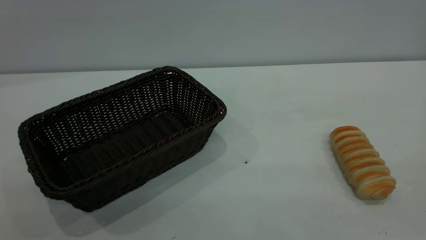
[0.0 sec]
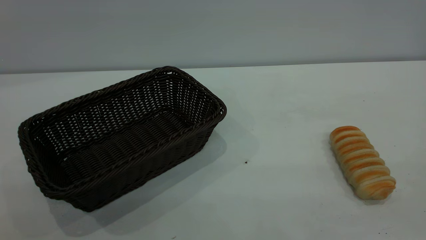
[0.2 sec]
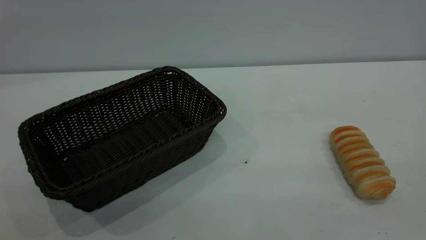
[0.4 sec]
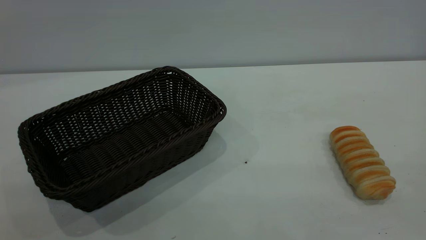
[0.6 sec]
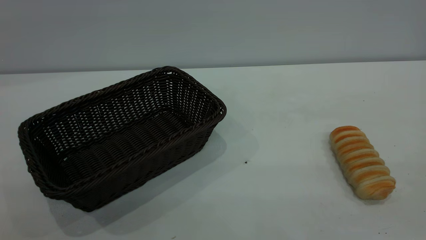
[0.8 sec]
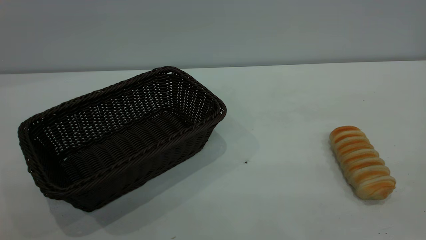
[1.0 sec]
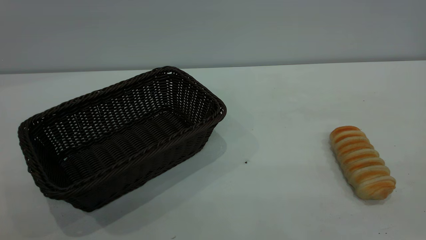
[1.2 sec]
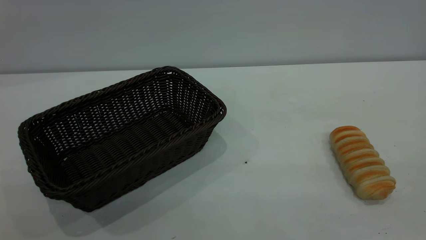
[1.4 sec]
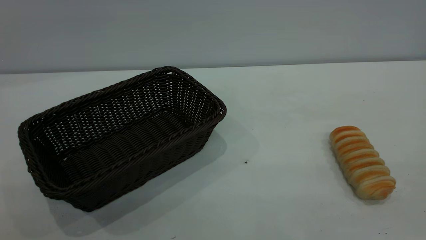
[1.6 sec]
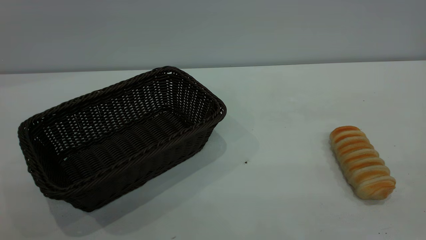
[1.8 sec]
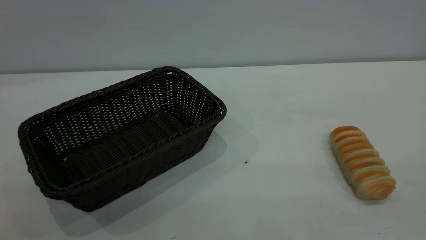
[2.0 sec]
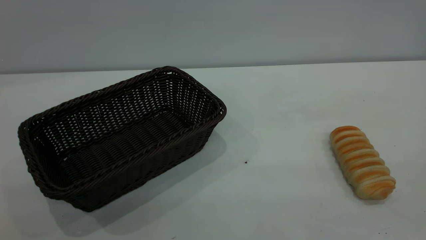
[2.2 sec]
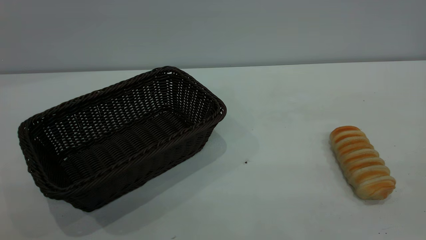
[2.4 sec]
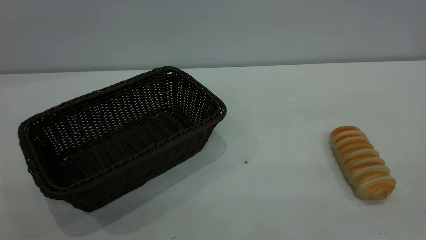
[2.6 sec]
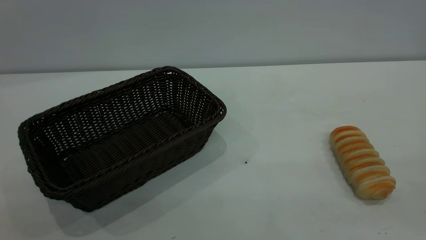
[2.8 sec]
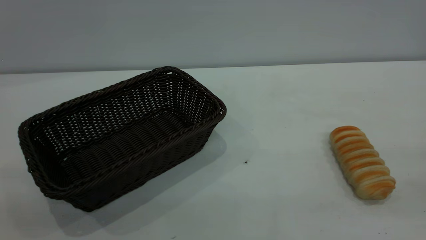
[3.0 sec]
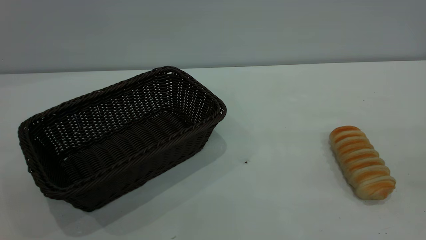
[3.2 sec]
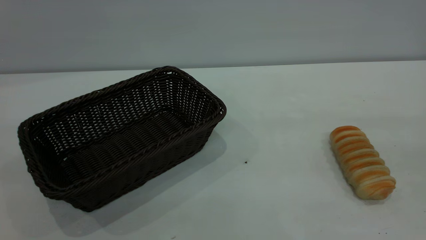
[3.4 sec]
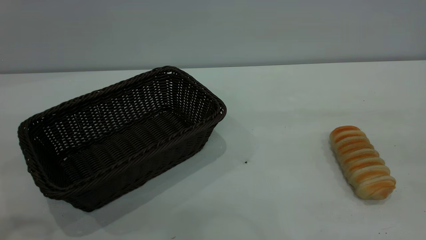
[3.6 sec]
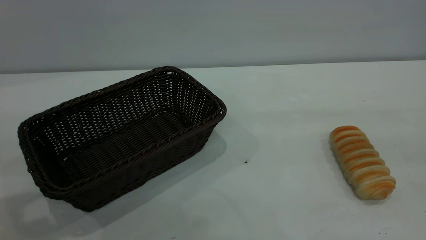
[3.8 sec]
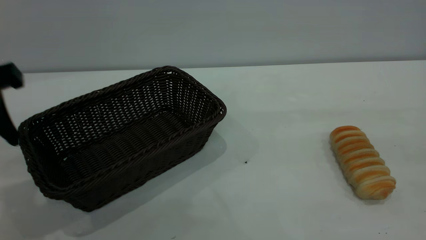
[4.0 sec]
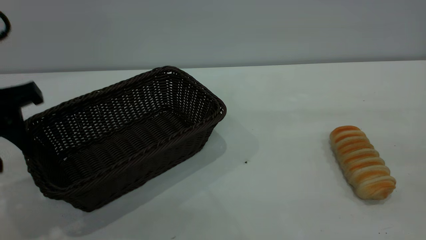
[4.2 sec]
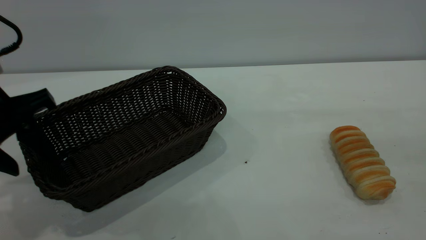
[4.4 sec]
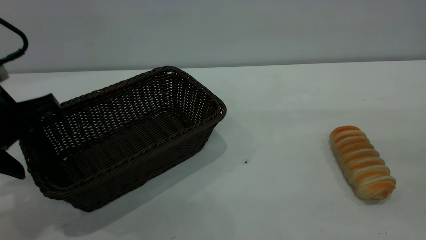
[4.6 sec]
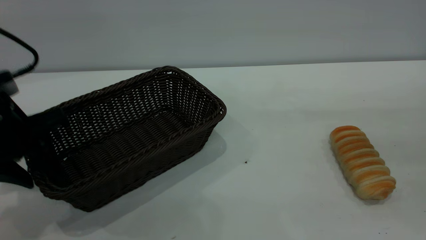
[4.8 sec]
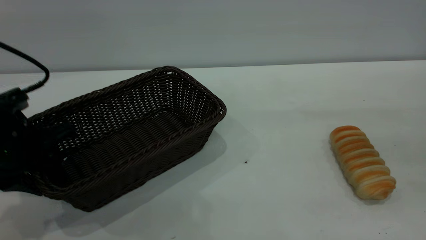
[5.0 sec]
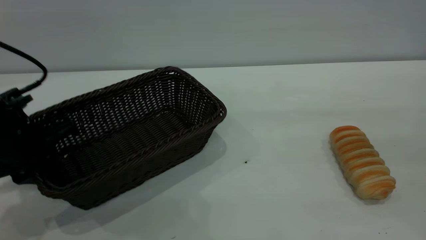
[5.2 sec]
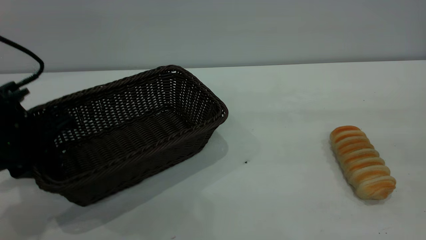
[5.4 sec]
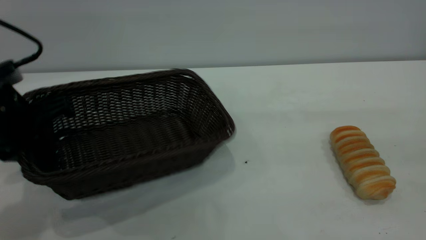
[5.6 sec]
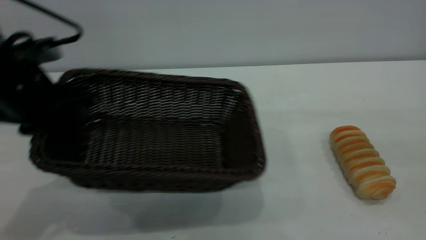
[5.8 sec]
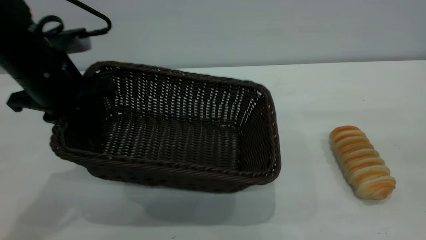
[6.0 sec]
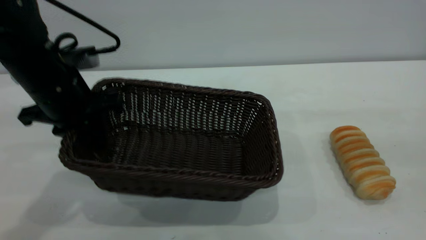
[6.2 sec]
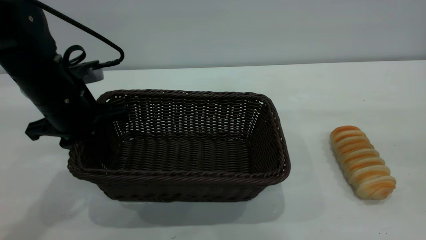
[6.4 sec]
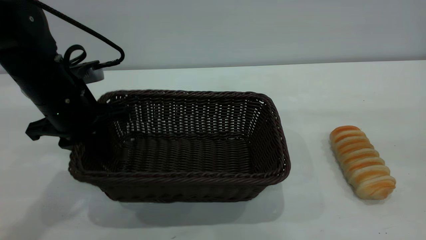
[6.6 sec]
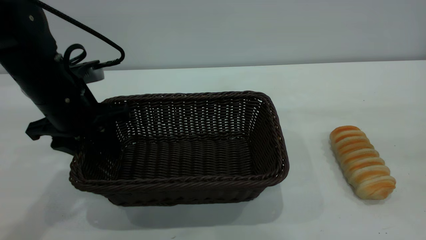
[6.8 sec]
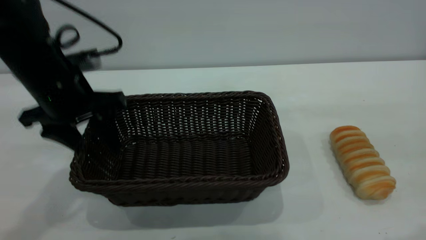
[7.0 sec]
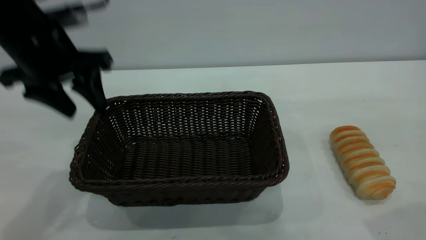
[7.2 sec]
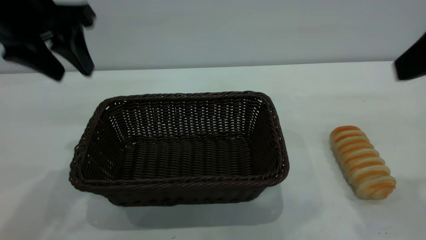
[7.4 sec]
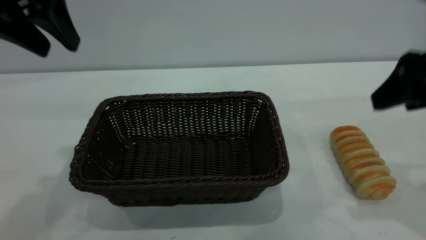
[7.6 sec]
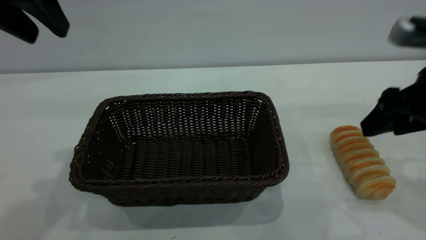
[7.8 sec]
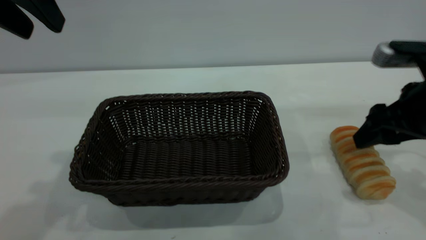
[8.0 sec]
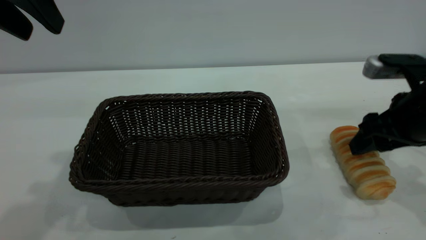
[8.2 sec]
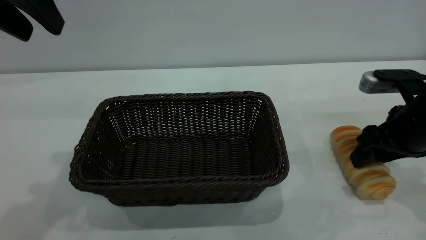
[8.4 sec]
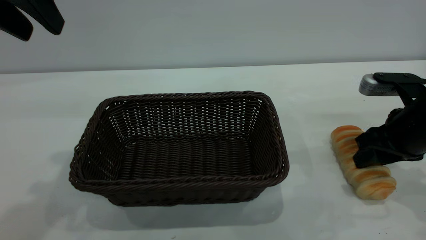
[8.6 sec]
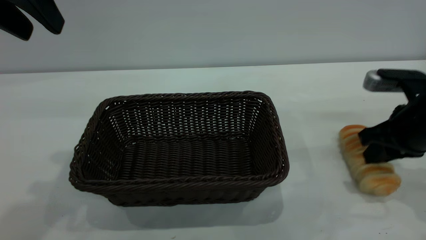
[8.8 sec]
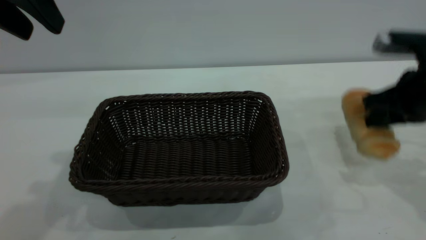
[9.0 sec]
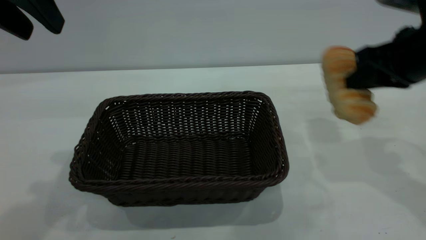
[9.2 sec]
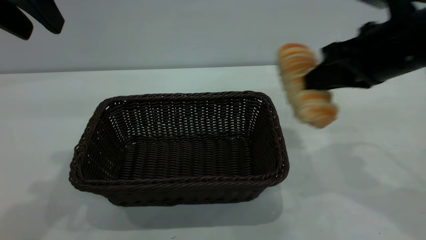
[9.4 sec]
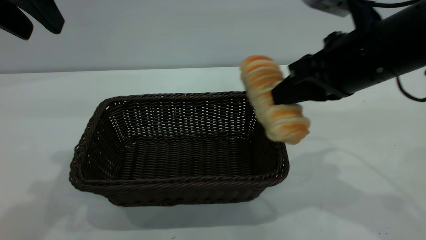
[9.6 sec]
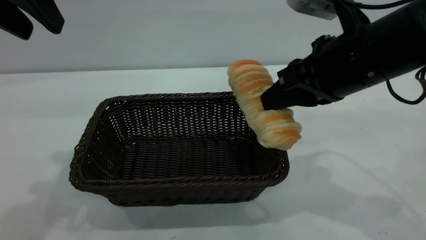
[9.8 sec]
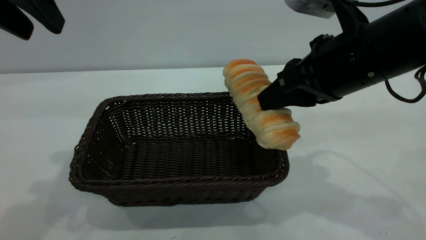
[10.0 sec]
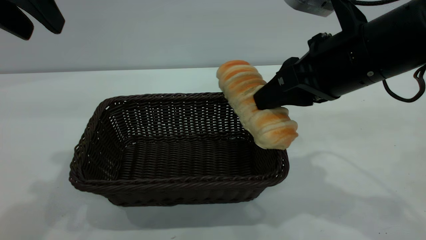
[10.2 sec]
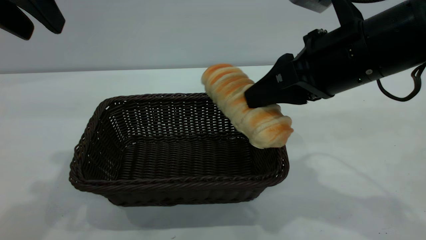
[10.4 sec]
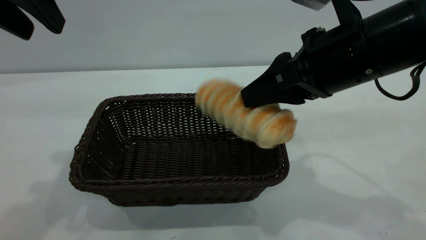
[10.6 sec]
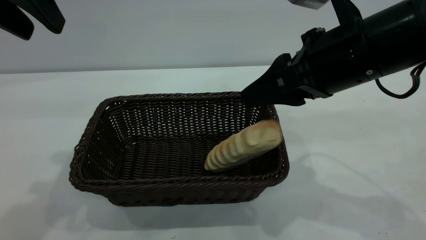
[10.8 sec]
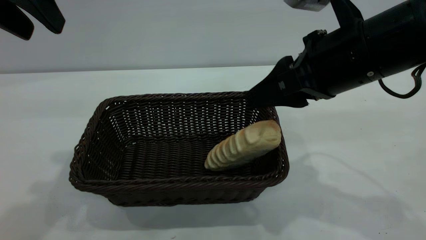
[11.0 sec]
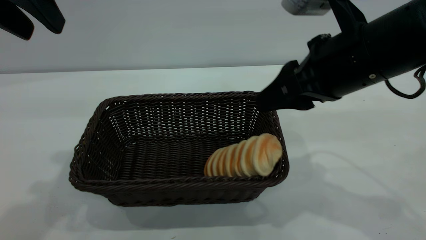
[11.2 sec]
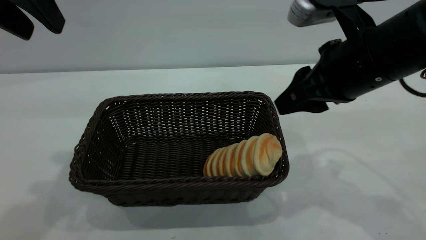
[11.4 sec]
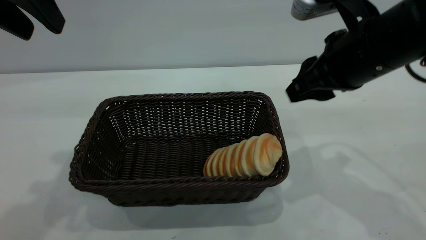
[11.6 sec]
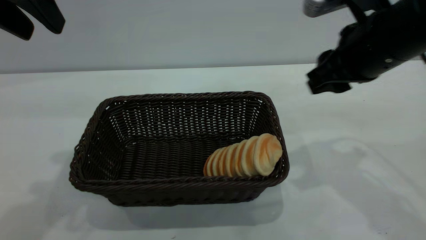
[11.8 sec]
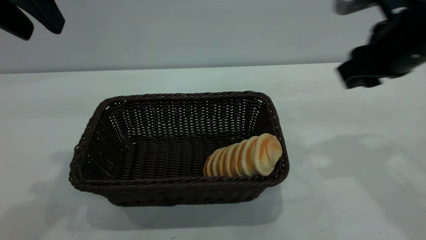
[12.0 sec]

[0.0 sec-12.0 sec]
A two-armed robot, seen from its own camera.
Task of the whole recording: One hand grasps the black basket and places it in the middle of the table, while the other hand picks up the long bread and puts it into the black basket.
Step, 0.0 sec to 7.2 sec: Move the basket to the center of view.
Step, 9.2 sec to 11.6 sec: place the bread into the basket.
0.0 sec to 1.6 sec: The two grippers keep their place.
3.0 sec to 4.4 sec: The left gripper shifts approximately 30 cm forward and downward.
4.4 sec to 6.0 sec: The left gripper moves forward and to the right, approximately 10 cm, and closes.
6.0 sec to 7.6 sec: The left gripper shifts roughly 15 cm upward, and opens its fingers. Meanwhile the right gripper goes approximately 20 cm forward and downward.
7.6 sec to 9.0 sec: The right gripper moves forward, about 5 cm, and closes up.
9.0 sec to 10.4 sec: The right gripper travels to the left by some 15 cm.
10.4 sec to 12.0 sec: The right gripper is displaced to the right by about 10 cm.

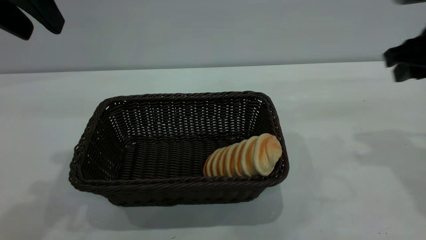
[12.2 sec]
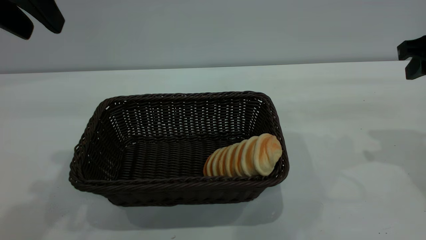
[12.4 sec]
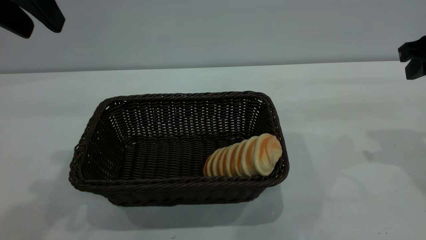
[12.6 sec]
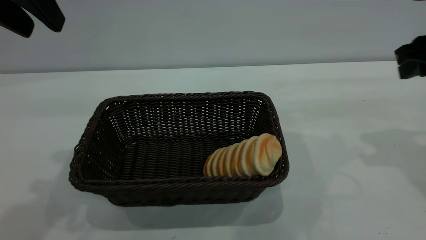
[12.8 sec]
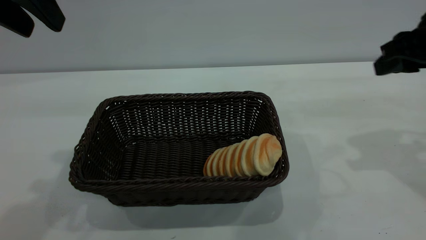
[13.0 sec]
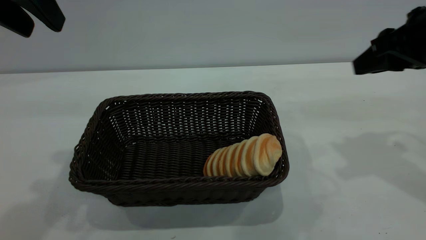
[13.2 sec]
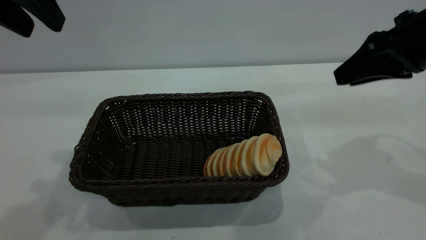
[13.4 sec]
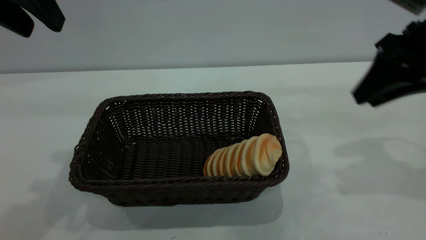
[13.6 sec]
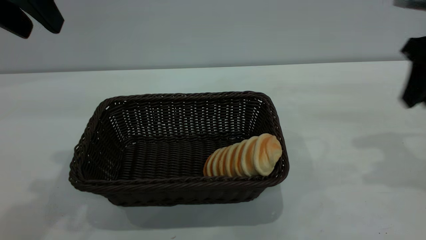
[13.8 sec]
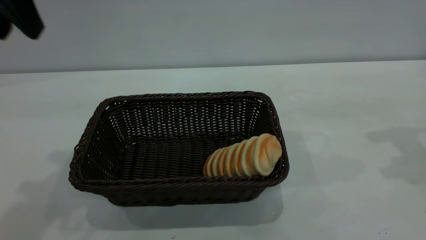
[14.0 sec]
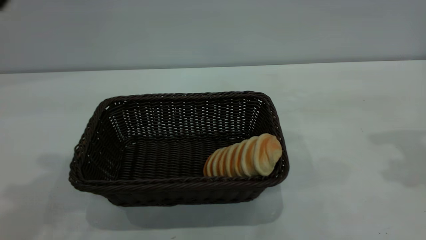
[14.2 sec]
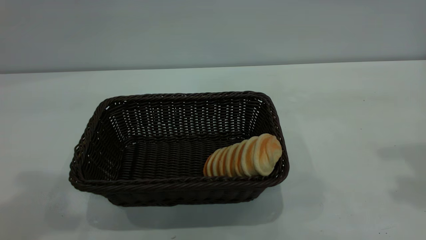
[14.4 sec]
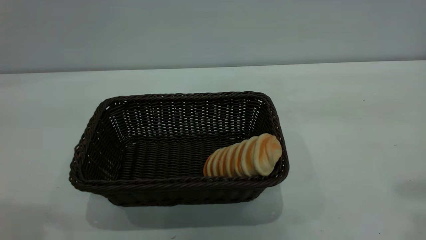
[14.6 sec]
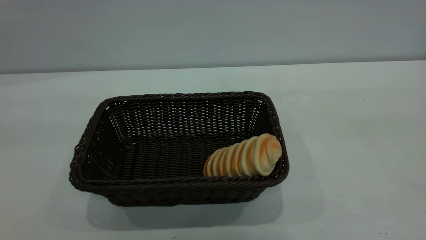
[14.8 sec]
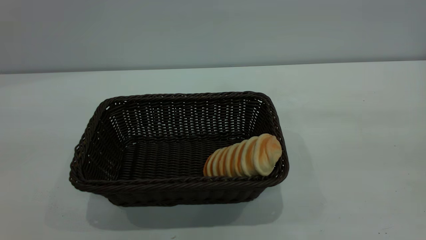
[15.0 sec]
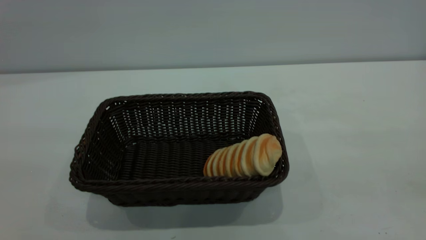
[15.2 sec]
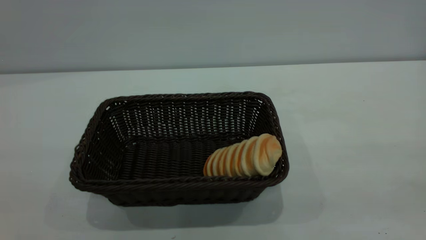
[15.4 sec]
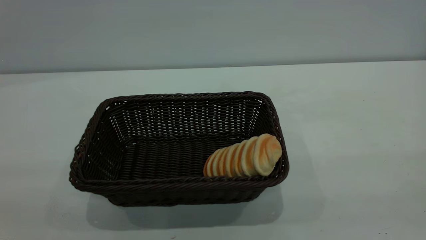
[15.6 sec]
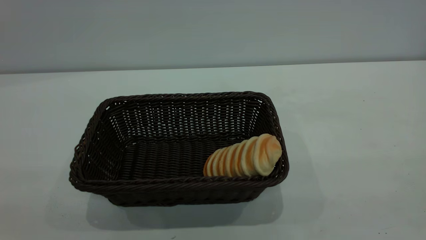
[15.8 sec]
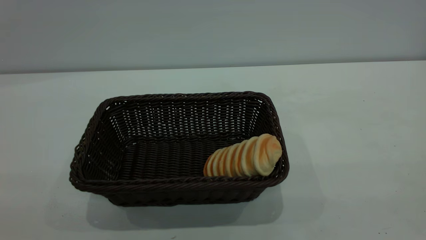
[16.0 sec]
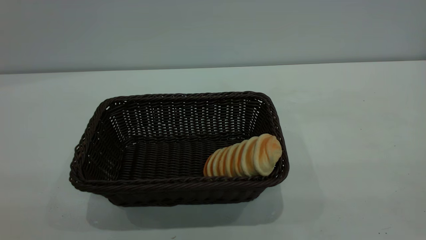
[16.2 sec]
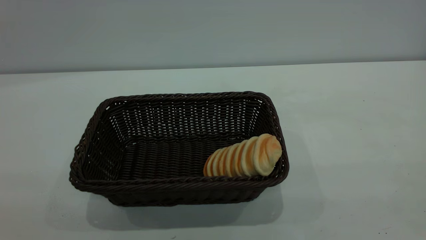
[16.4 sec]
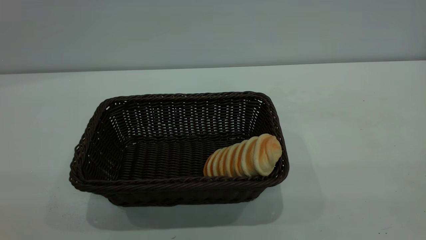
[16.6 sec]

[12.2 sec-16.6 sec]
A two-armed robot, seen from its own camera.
Task of the whole recording: One hand grasps the black basket and places it in the middle of the table, while the other hand picks up the long bread and puts it into the black basket.
13.6 sec to 15.2 sec: The left gripper heads backward, covering approximately 25 cm. The right gripper goes approximately 35 cm backward and upward, and opens.
